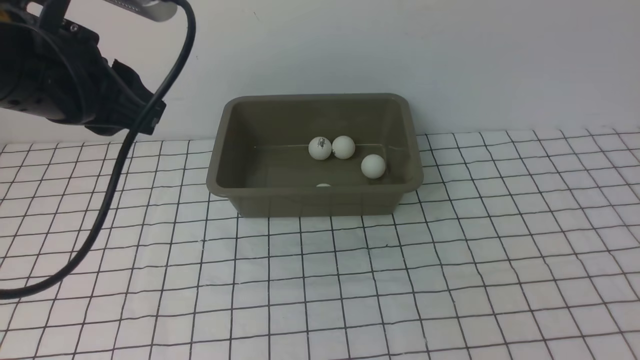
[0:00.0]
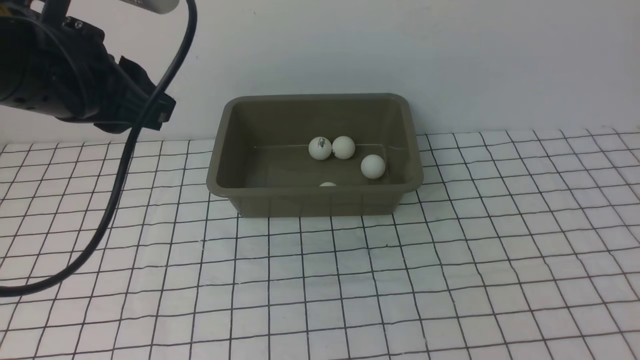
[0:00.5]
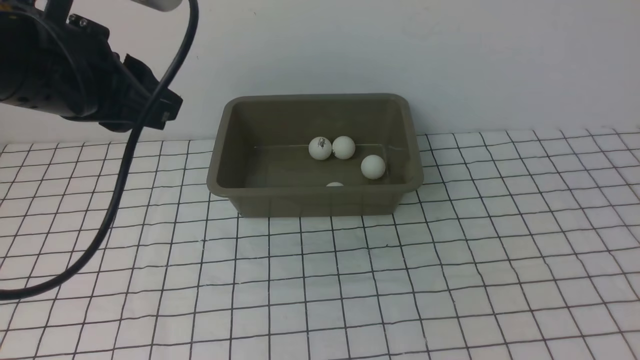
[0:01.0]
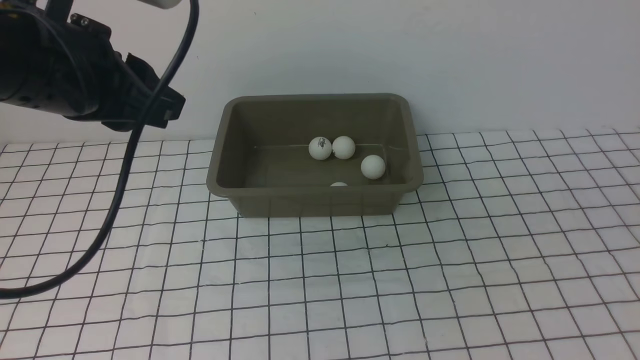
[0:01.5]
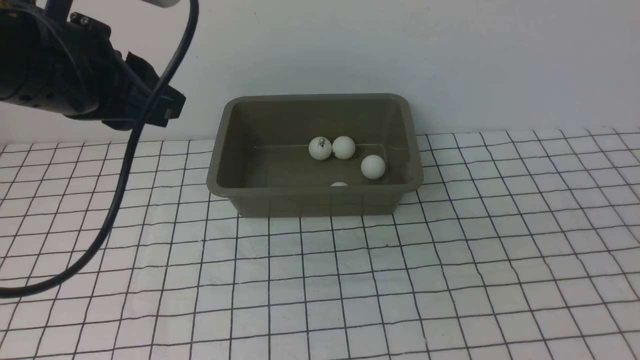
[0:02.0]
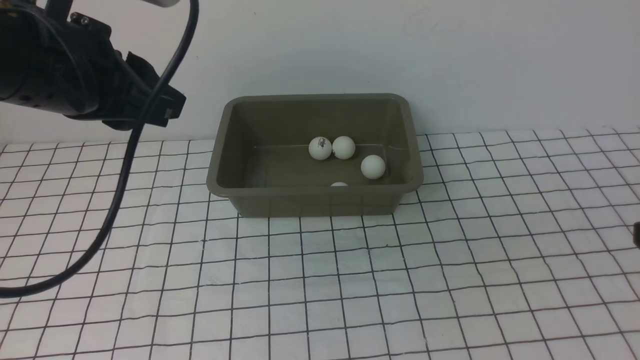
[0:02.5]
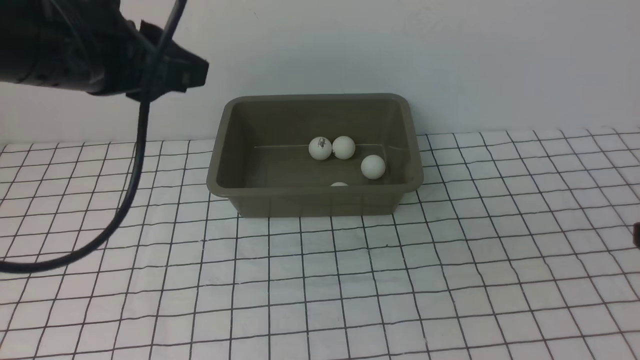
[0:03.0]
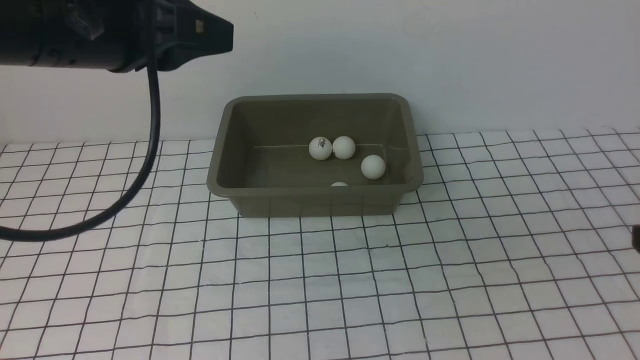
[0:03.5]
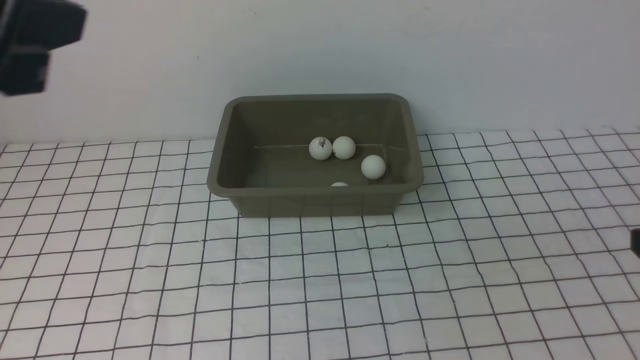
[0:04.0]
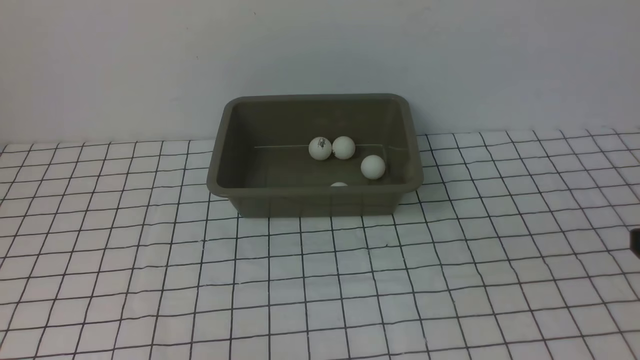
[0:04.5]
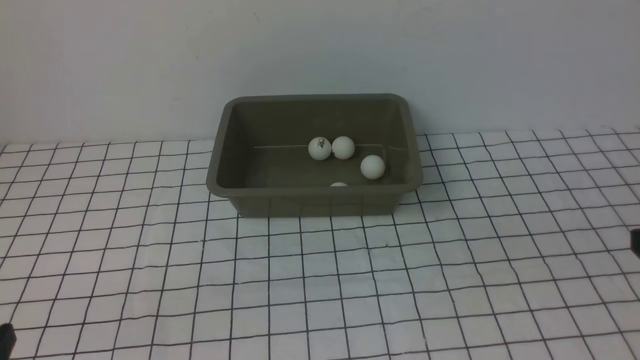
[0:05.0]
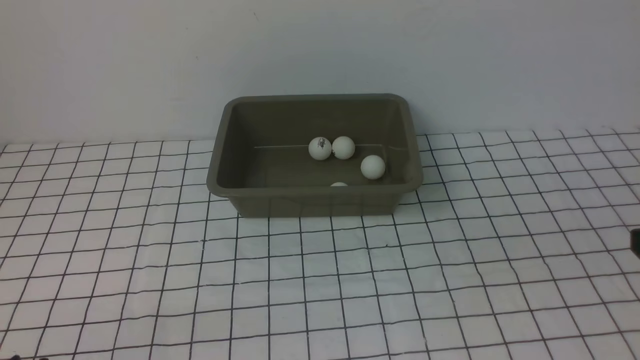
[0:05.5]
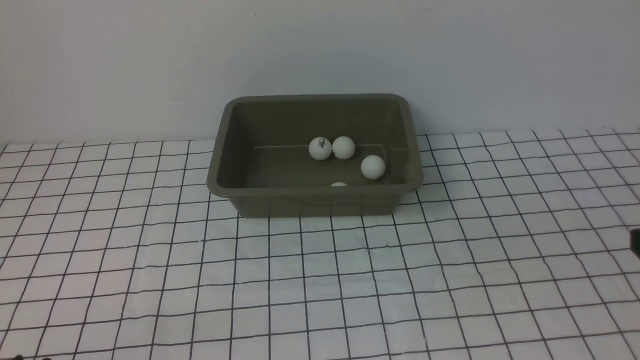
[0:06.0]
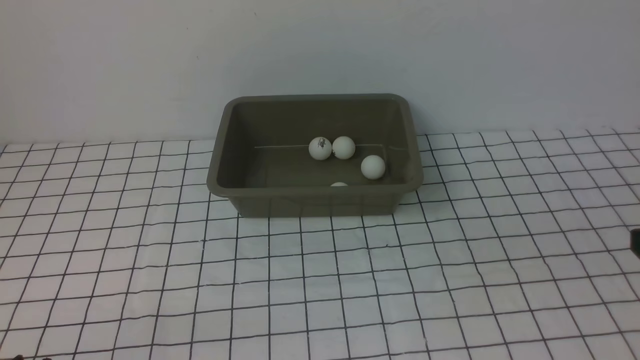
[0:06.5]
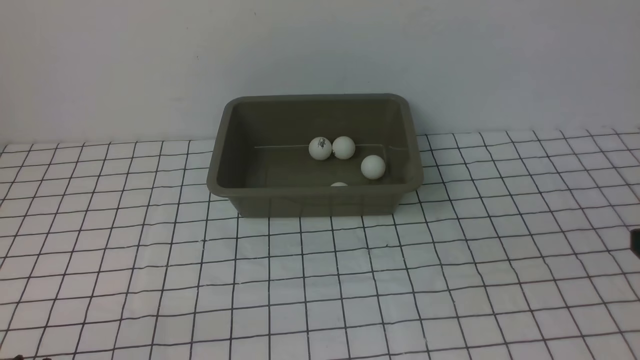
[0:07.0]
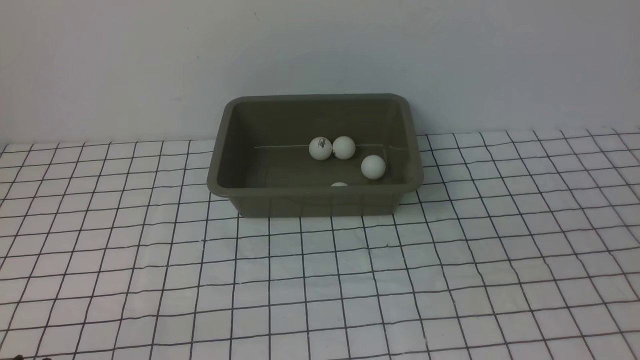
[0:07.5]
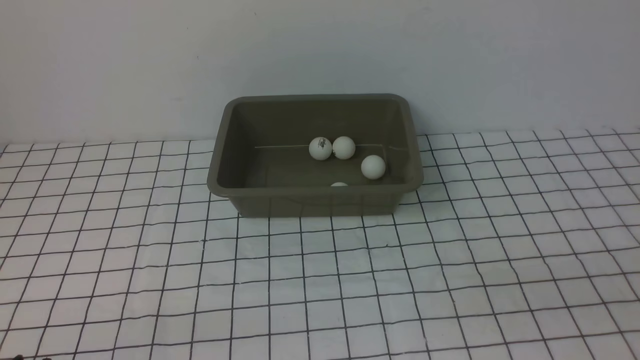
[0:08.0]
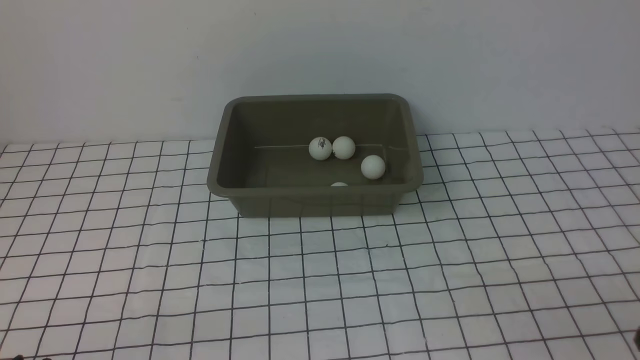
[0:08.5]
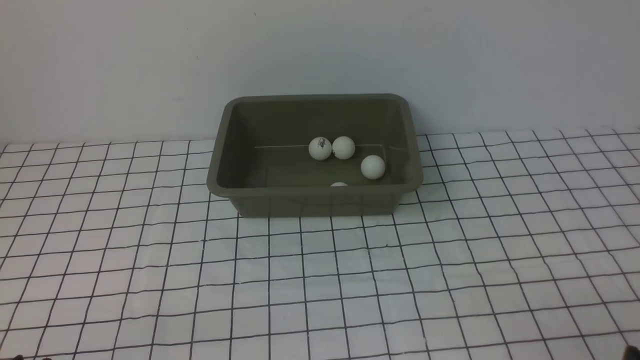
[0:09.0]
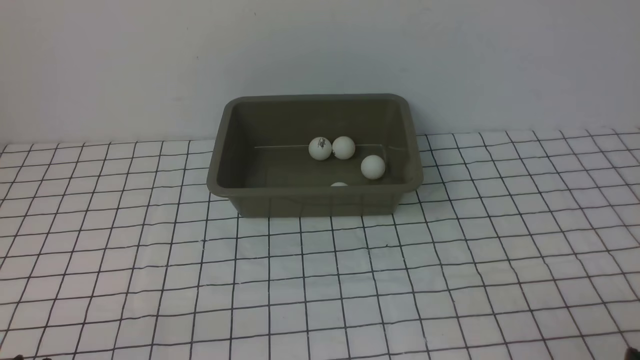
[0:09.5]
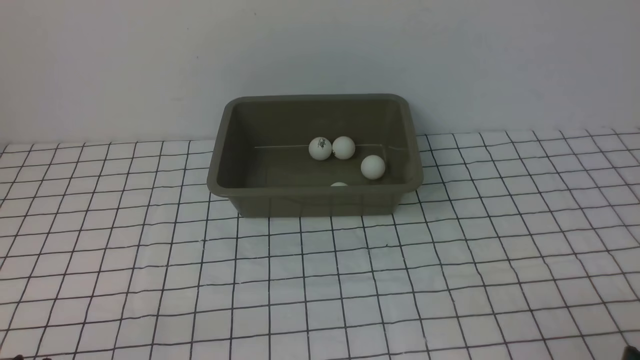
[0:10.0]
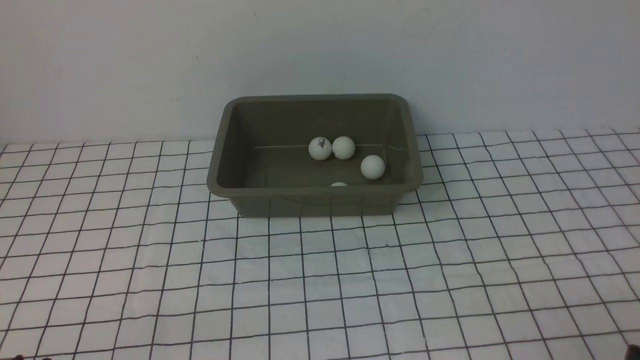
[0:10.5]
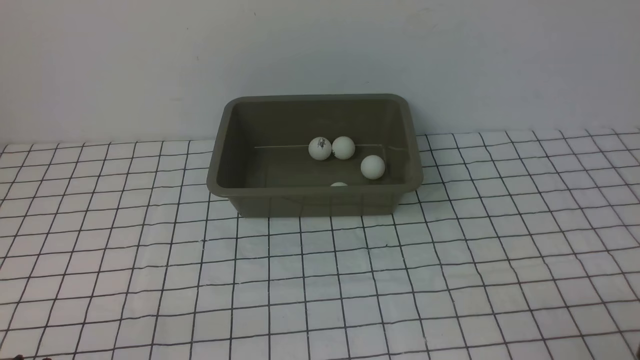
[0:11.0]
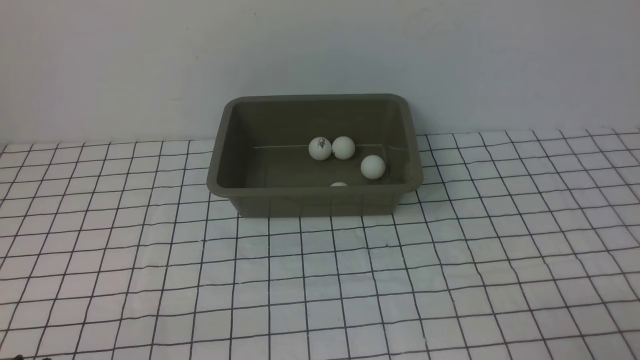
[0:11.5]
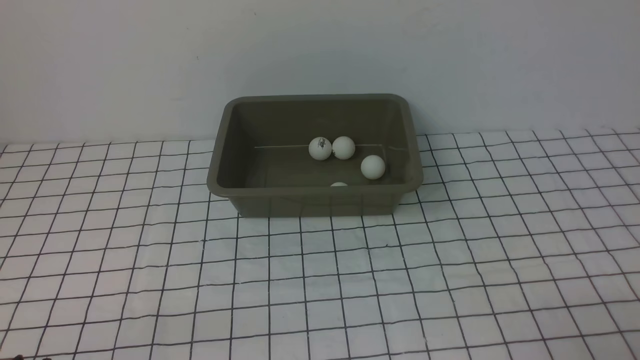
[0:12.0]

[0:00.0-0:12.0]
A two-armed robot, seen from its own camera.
0:02.0 to 0:04.0: The left gripper goes approximately 10 cm backward and upward.
0:04.0 to 0:06.0: The left gripper heads downward and backward, covering about 30 cm.

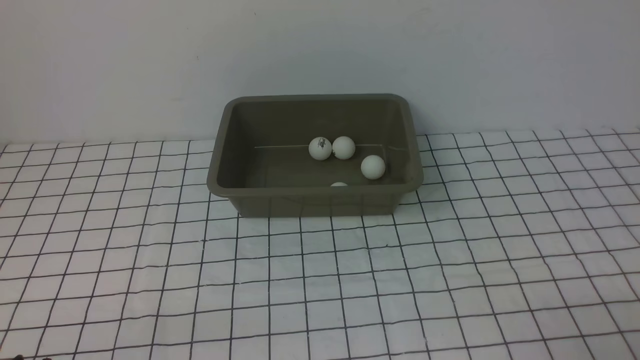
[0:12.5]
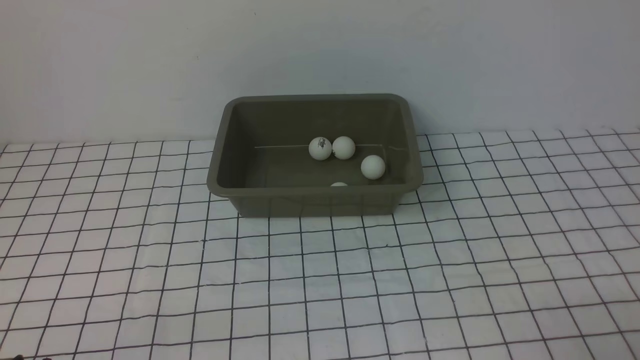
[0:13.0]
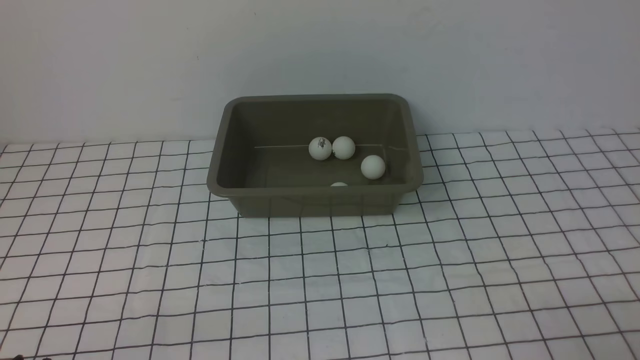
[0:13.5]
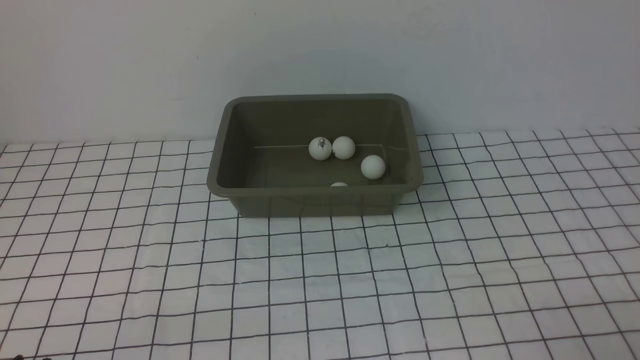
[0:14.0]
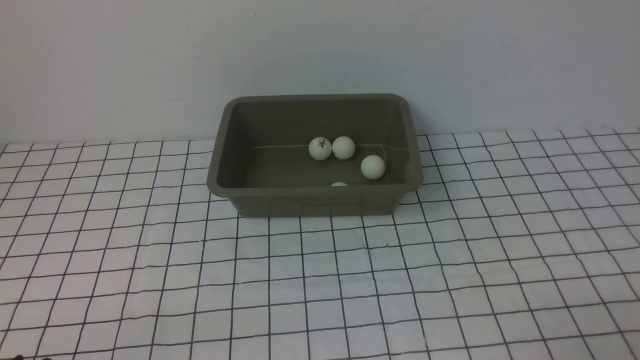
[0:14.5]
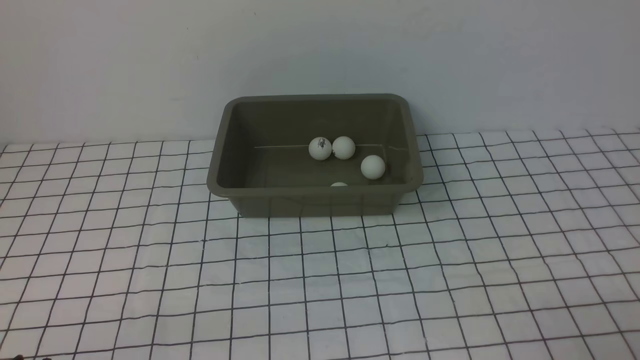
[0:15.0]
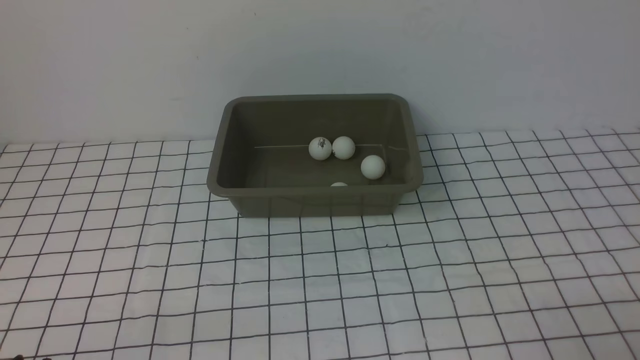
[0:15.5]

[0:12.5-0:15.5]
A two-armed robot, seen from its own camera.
0:12.5 to 0:15.5: Neither gripper changes place.
